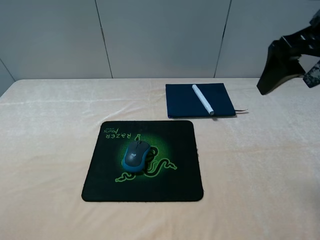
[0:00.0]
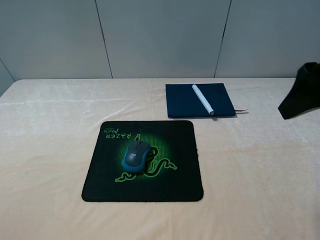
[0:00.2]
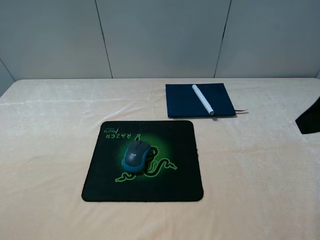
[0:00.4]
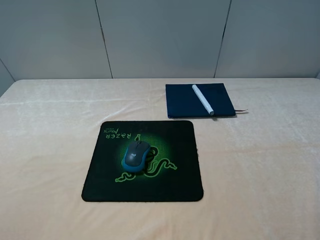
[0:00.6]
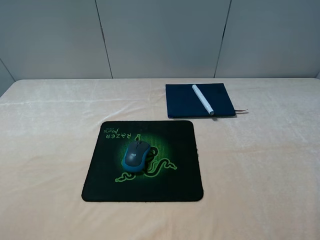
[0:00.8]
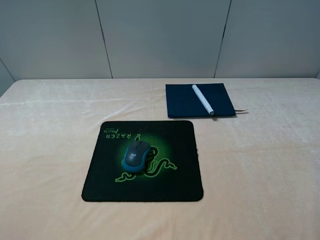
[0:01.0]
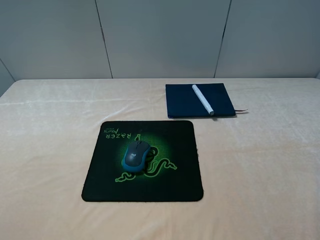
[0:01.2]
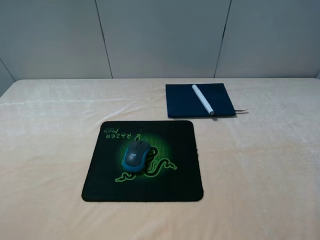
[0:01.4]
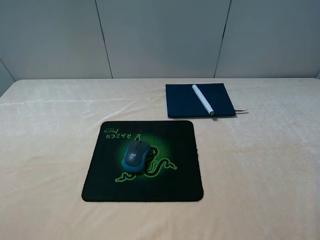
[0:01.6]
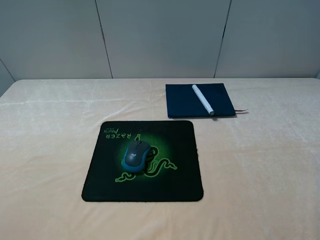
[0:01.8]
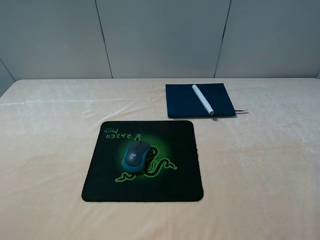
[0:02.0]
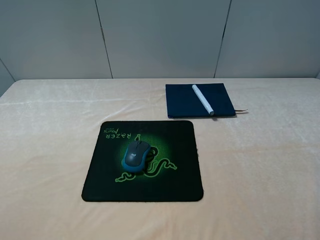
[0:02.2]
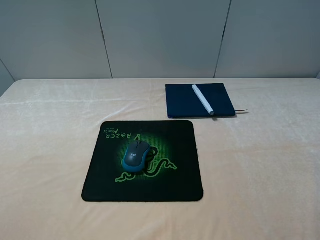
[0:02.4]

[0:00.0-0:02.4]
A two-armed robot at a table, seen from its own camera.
0:00.0 to 0:01.2: The right gripper shifts some 20 cm backward.
0:01.2 to 0:02.4: The two grippers keep their place.
